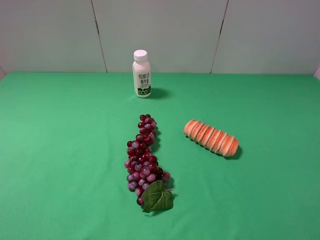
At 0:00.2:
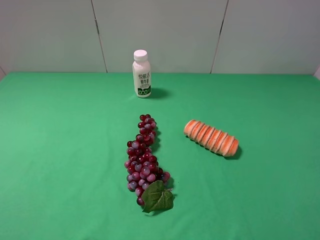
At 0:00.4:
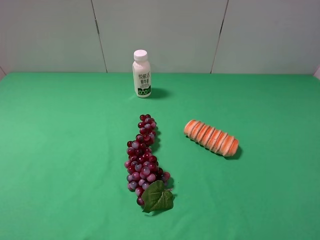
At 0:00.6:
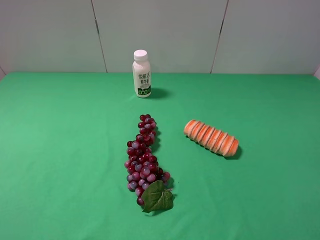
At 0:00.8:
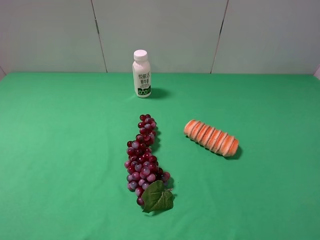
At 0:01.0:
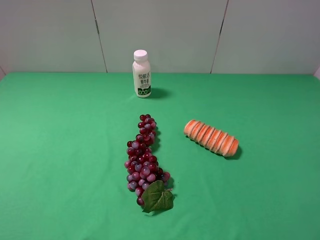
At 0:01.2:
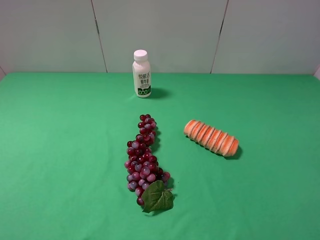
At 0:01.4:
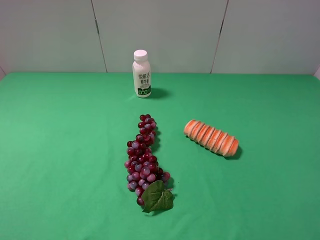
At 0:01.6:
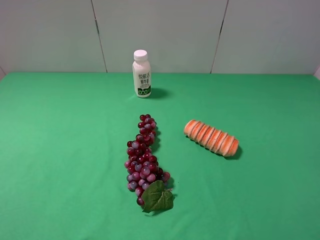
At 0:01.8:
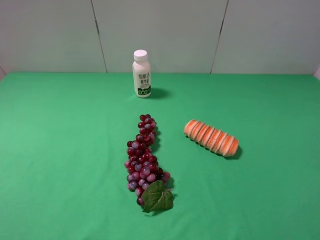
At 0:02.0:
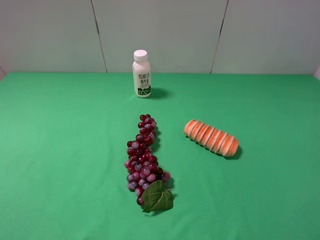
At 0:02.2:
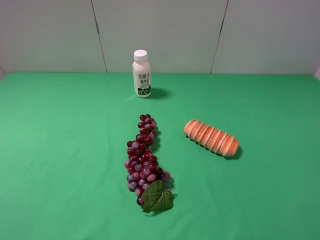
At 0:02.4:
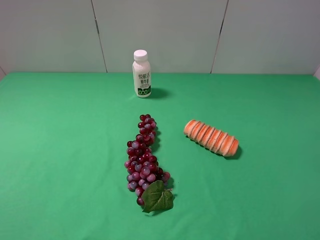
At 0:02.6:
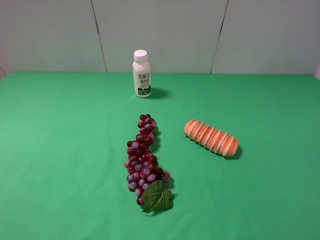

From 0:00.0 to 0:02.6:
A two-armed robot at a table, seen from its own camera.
Task of the whole recording: use the left gripper to pick up the item and transfer it from the left gripper to the right gripper.
From 0:01.2 to 0:02.6: The two grippers keep their place.
